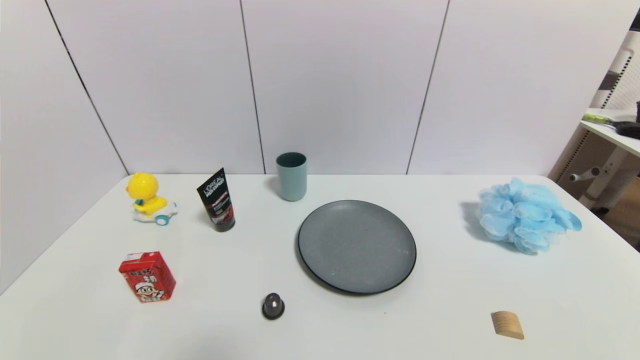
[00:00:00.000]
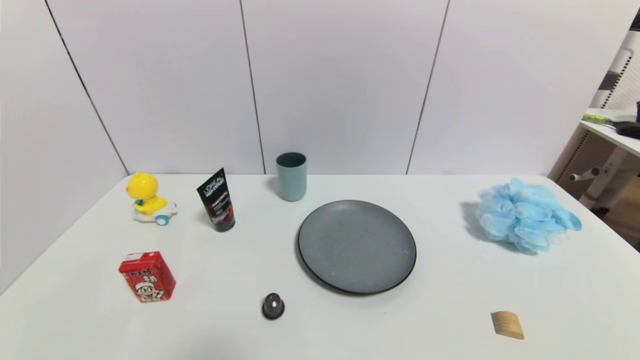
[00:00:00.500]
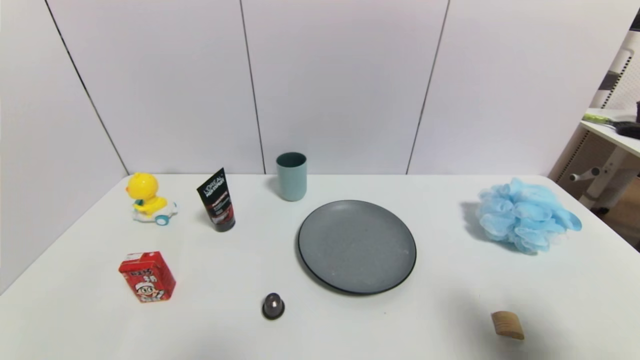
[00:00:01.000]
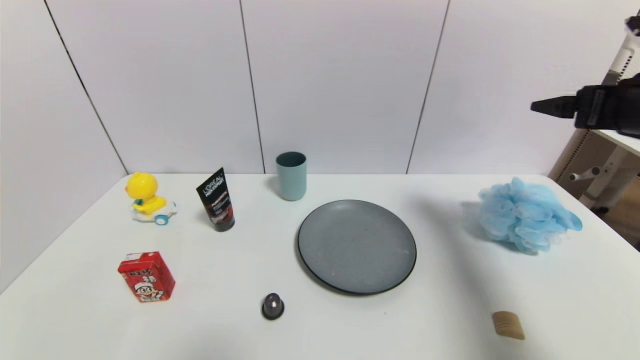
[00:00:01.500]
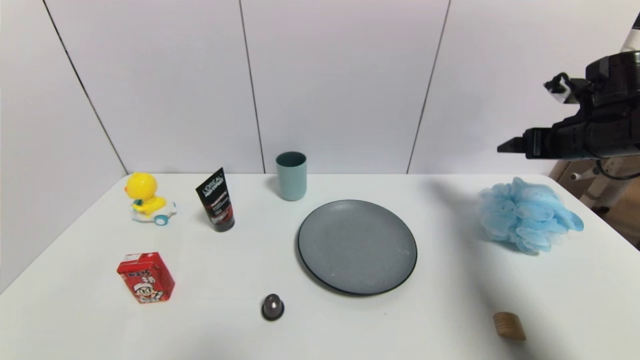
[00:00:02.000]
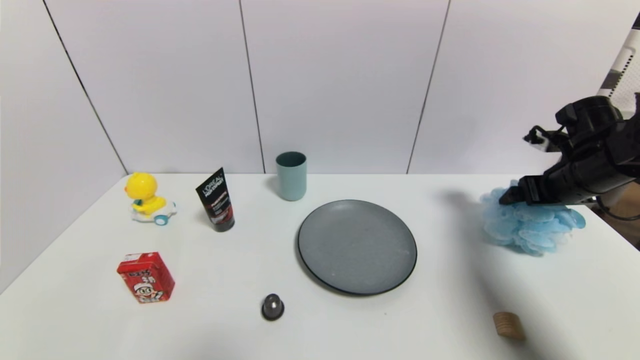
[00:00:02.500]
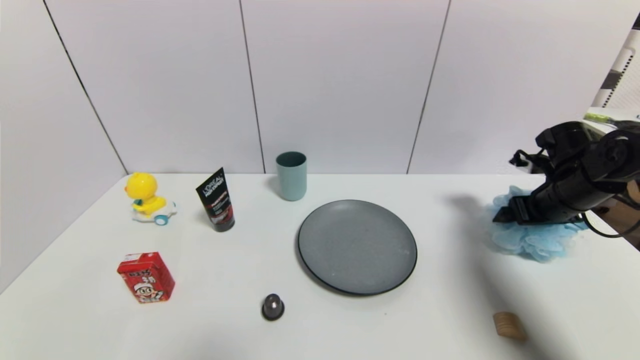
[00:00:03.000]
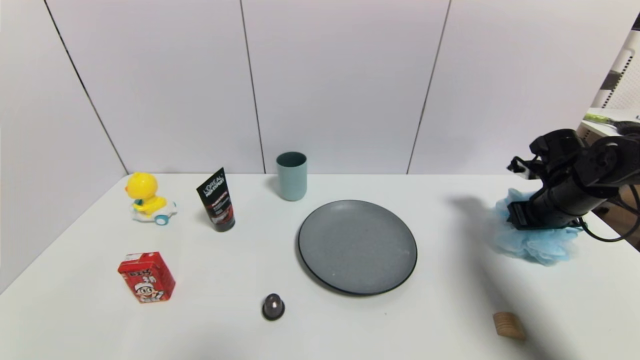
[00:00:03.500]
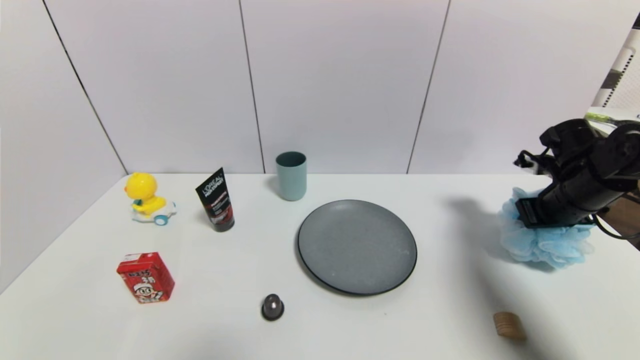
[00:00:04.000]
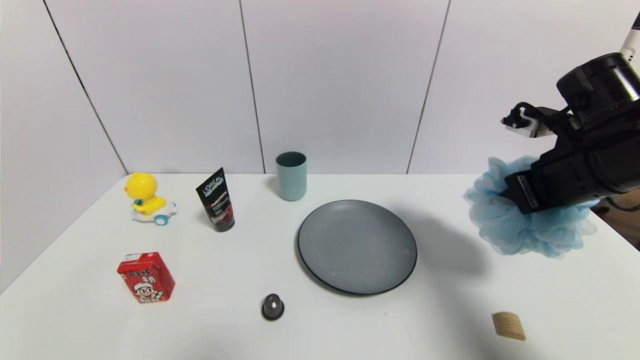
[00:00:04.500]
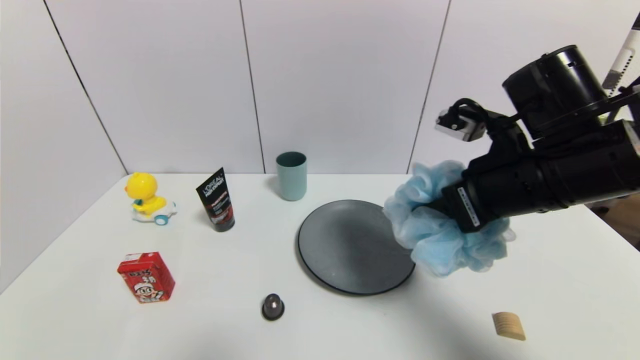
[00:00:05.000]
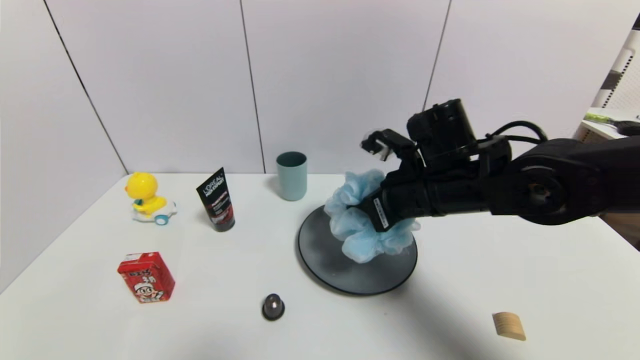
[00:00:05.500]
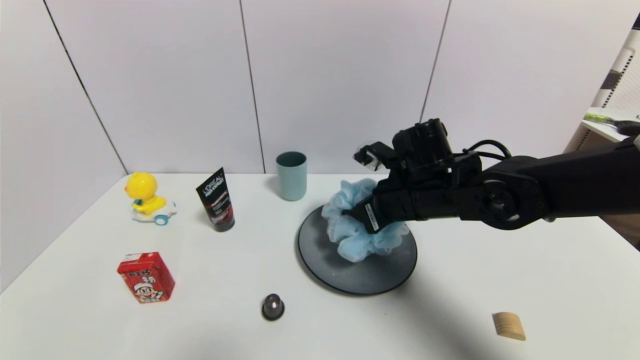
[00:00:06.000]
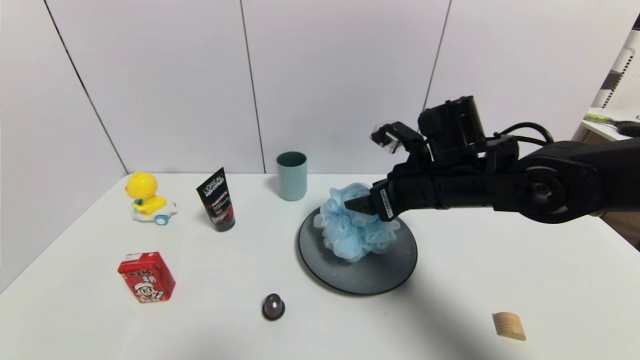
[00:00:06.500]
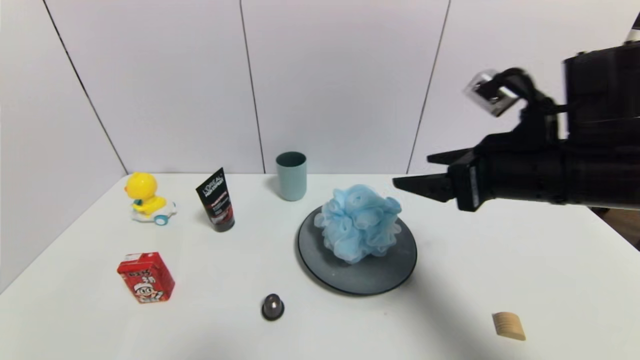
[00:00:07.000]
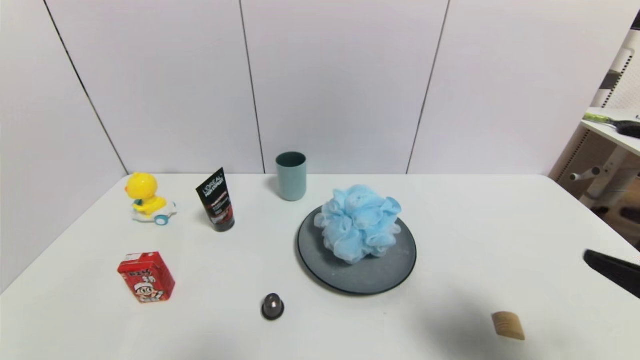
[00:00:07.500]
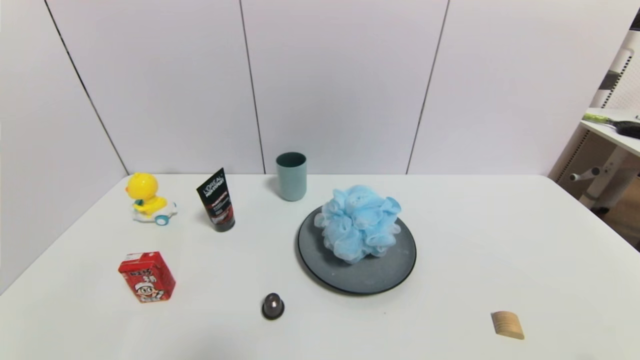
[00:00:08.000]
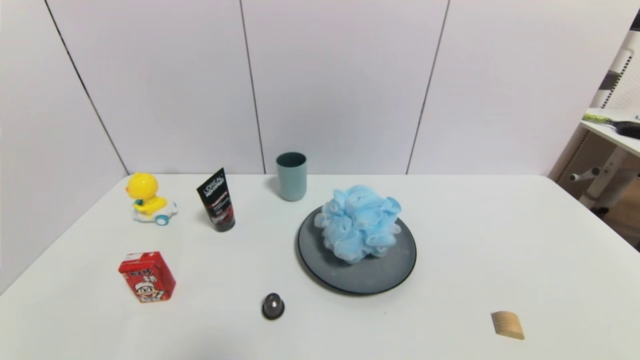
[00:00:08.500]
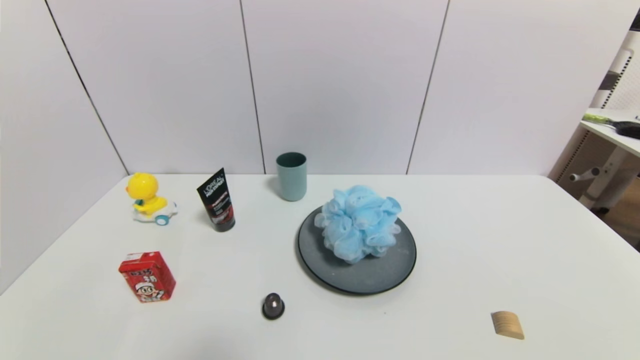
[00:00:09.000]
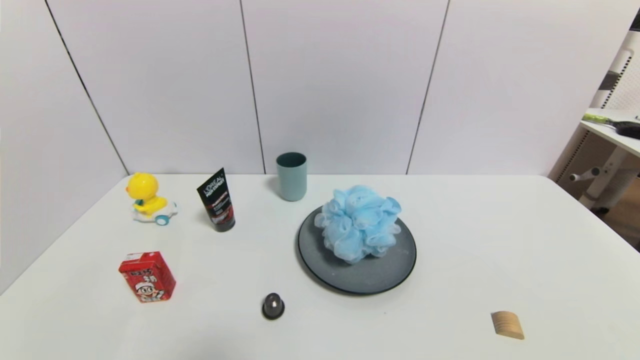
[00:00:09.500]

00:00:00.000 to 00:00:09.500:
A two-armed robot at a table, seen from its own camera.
Task of the whole recording: use a gripper to pick the target object and place on the gray plate.
Step, 00:00:00.000 to 00:00:03.500: Grasp the shower sphere with the right gripper.
Step, 00:00:04.000 to 00:00:06.500: Place the shower sphere on the gray plate with the right gripper.
00:00:00.000 to 00:00:02.000: The right gripper goes about 40 cm forward and upward.
00:00:02.000 to 00:00:04.000: The right gripper travels downward by approximately 5 cm, and closes its fingers.
00:00:04.000 to 00:00:05.500: The right gripper travels to the left by some 25 cm.
00:00:05.500 to 00:00:07.500: The right gripper shifts roughly 30 cm backward and to the right, and opens up.
00:00:07.500 to 00:00:09.500: The right gripper shifts some 20 cm downward and backward.
